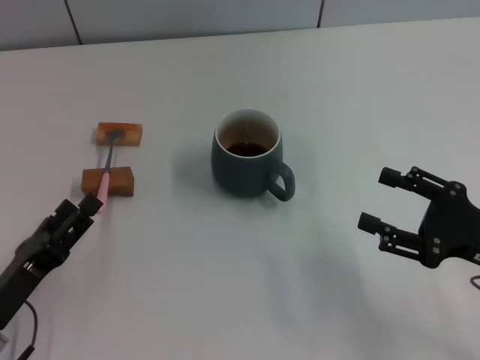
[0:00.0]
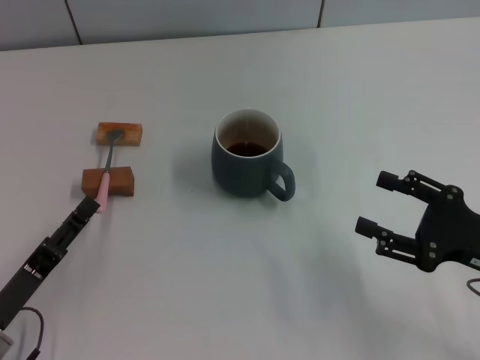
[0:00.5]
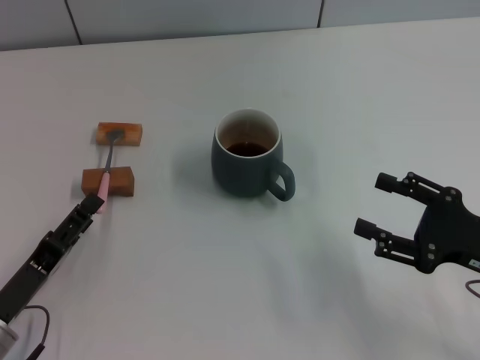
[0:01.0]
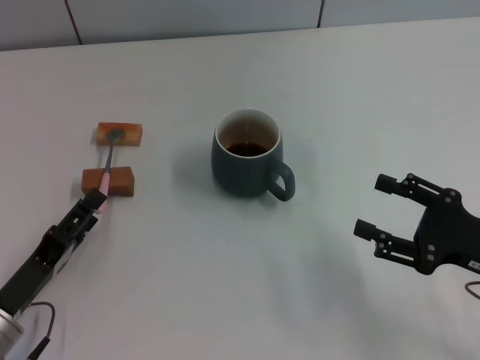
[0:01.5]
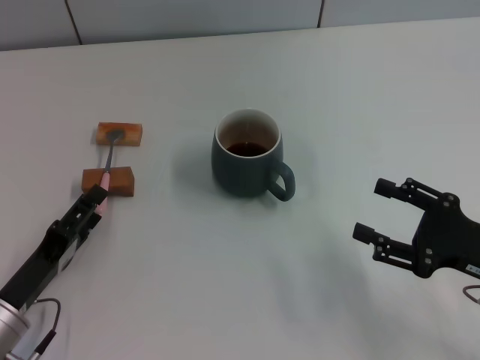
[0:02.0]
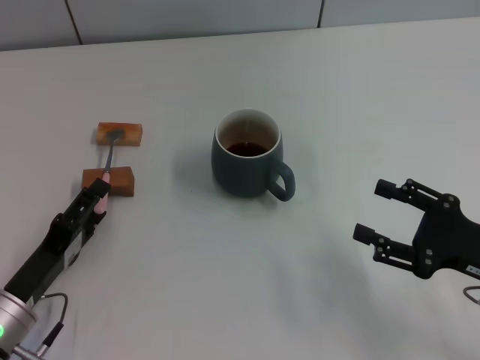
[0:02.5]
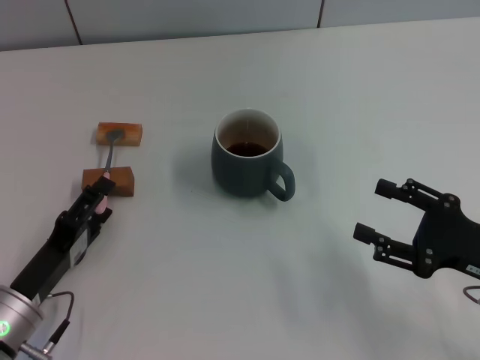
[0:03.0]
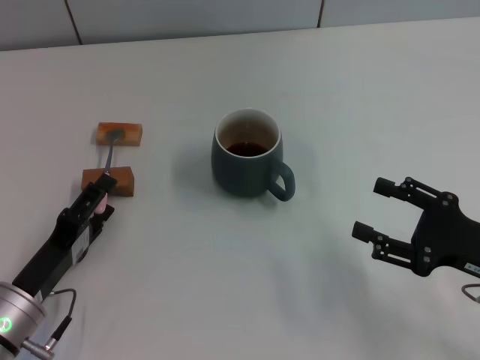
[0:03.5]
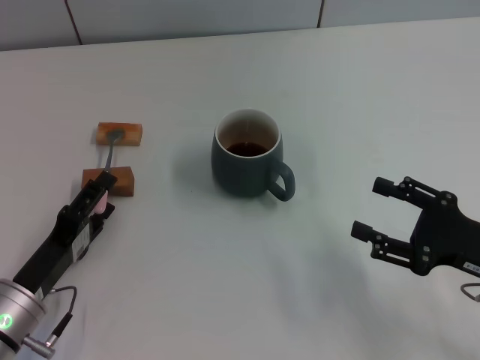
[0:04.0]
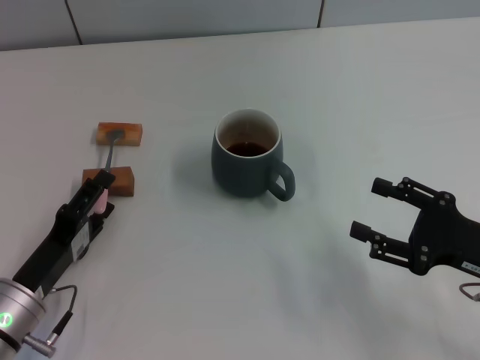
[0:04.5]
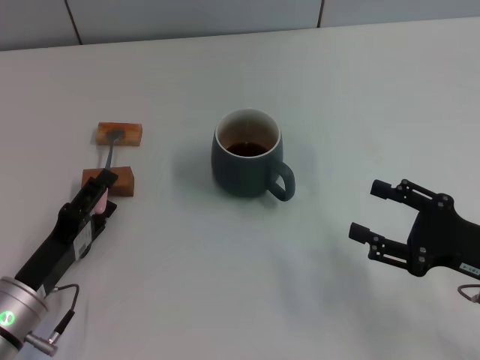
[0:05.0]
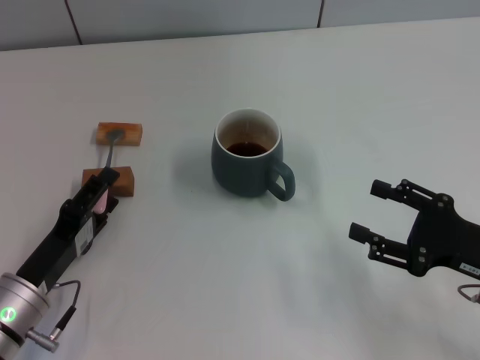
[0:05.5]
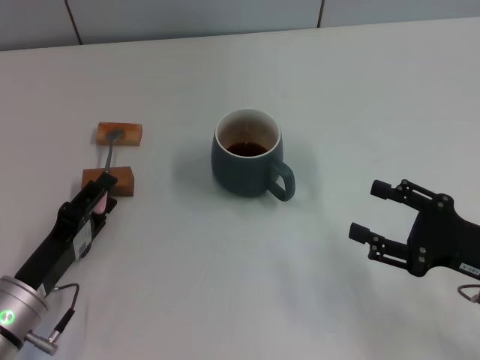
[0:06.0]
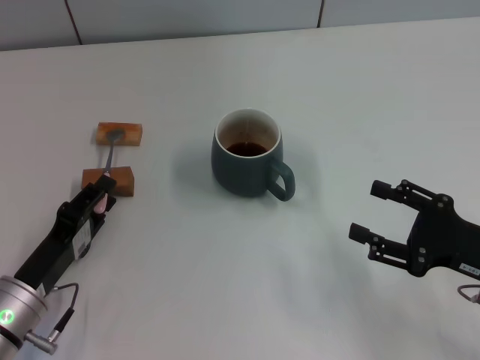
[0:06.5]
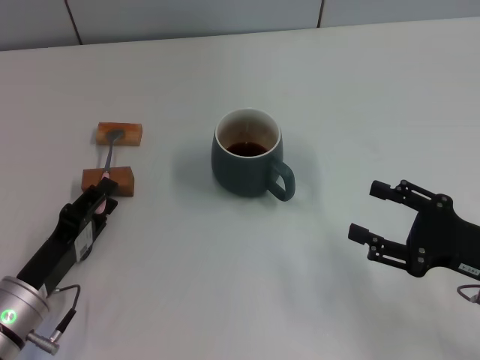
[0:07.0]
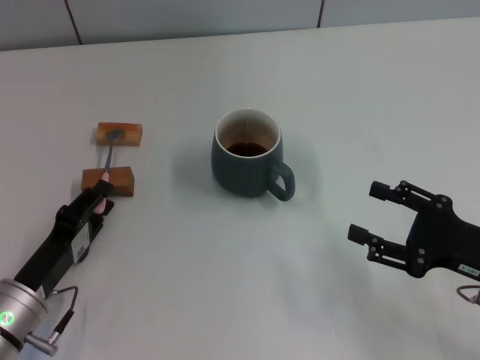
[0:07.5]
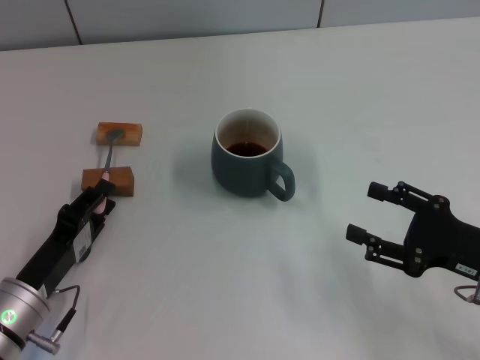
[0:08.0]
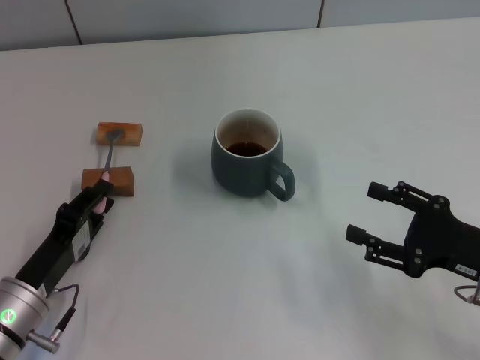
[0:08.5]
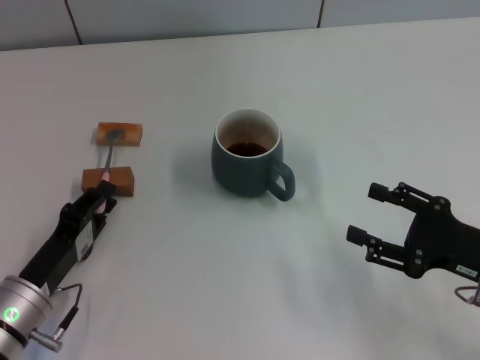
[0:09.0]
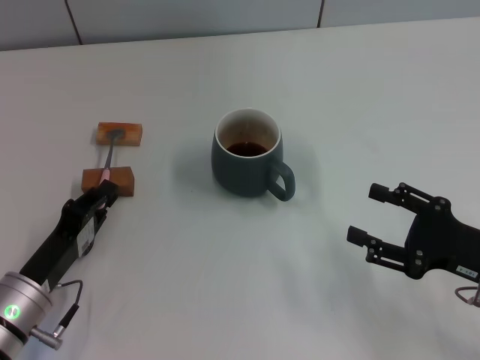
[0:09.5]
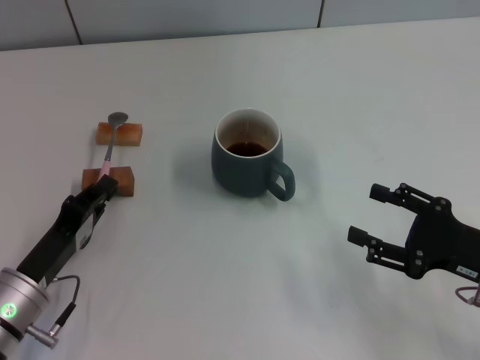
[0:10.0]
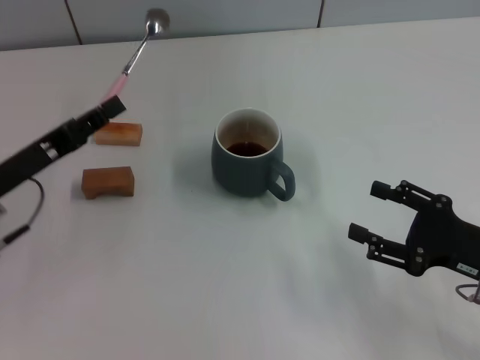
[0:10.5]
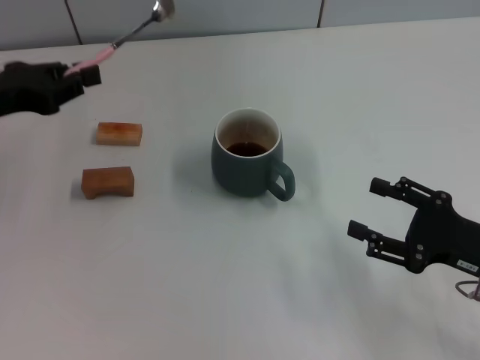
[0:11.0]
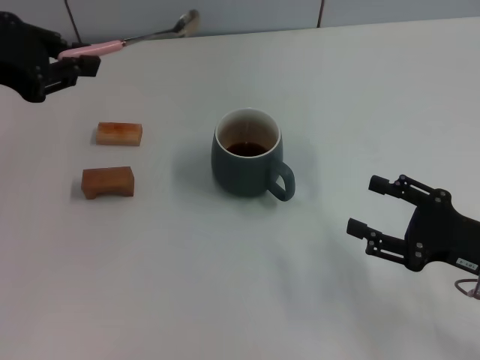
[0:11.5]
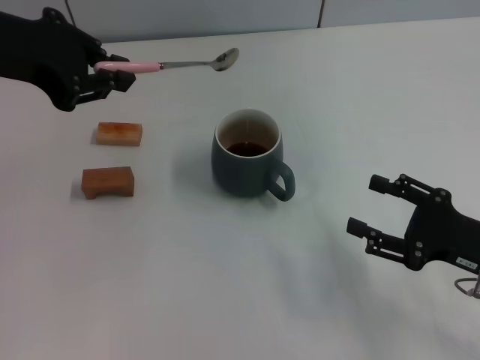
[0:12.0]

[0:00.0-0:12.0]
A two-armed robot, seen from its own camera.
Task of the whole recording: Move the grey cup to the center, lift the pink spoon, stir it three times in the cup, and put the spoon into the cup.
Step, 0:00.0 to 0:10.0: Pick up the spoon with the left gripper.
0:02.0 to 0:04.0: There are only small adjustments of the grippers.
0:04.0 to 0:06.0: The left gripper closes up.
0:06.0 to 0:08.0: Both grippers stay about where they are.
0:08.0 to 0:10.0: The left gripper closes.
0:10.0 to 0:12.0: The left gripper moves upward and forward, approximately 30 cm.

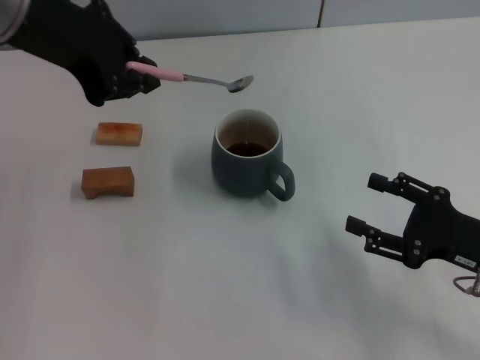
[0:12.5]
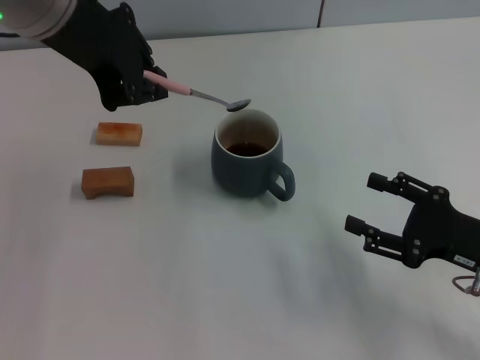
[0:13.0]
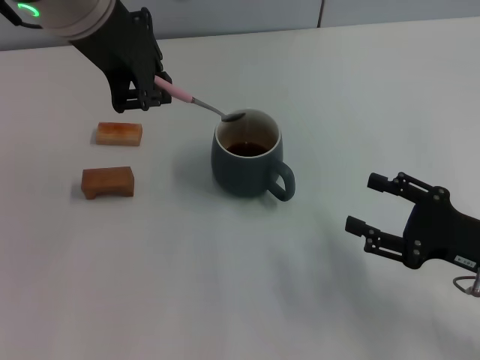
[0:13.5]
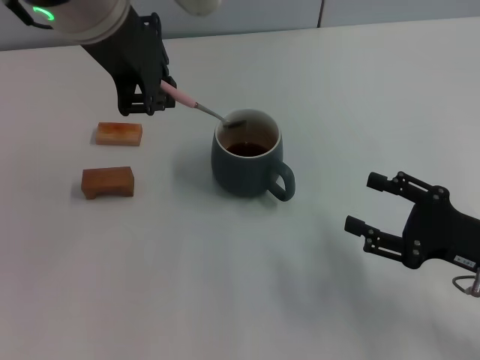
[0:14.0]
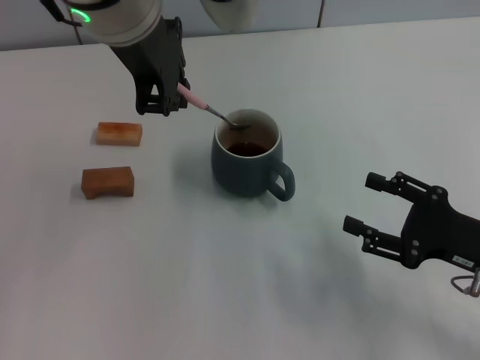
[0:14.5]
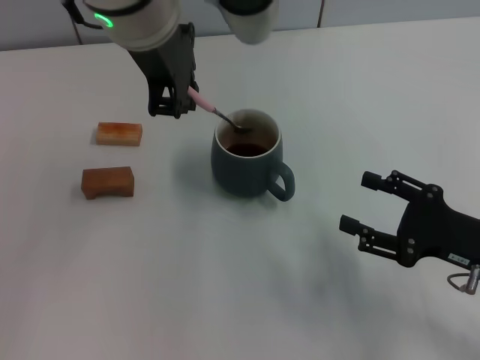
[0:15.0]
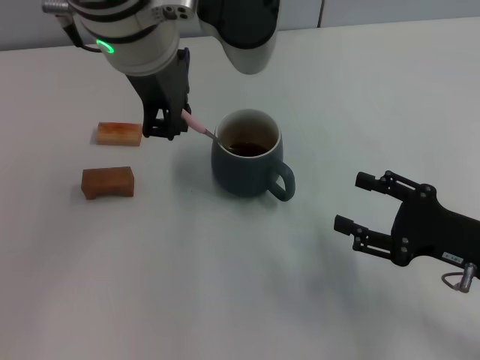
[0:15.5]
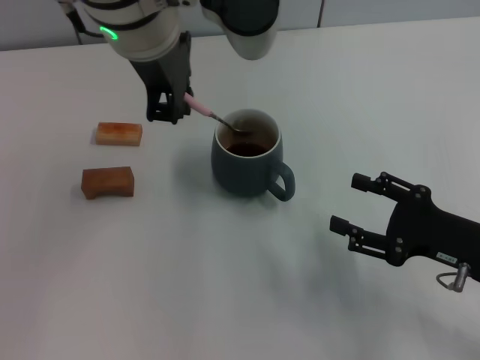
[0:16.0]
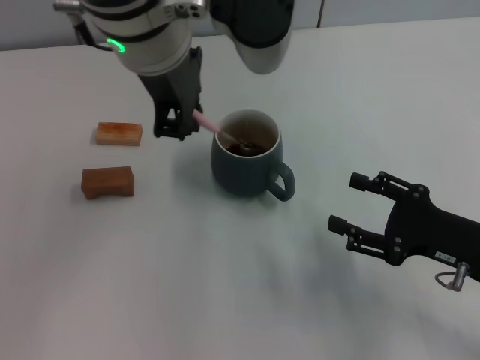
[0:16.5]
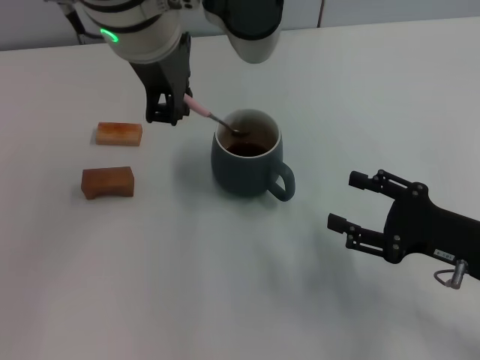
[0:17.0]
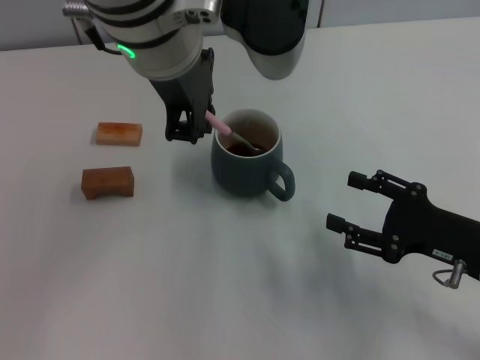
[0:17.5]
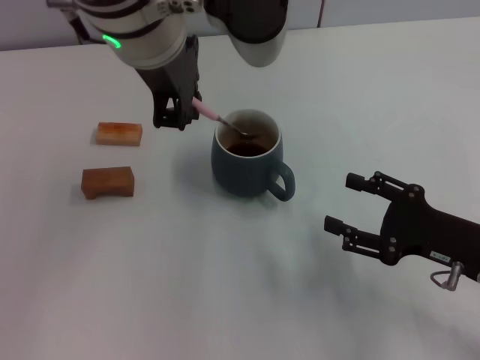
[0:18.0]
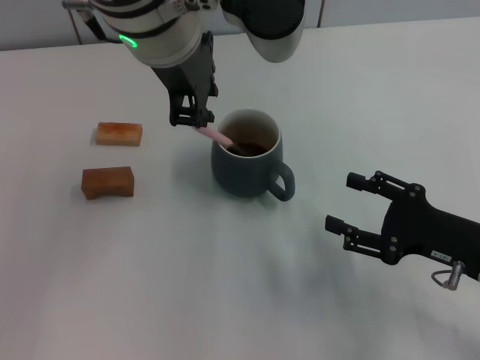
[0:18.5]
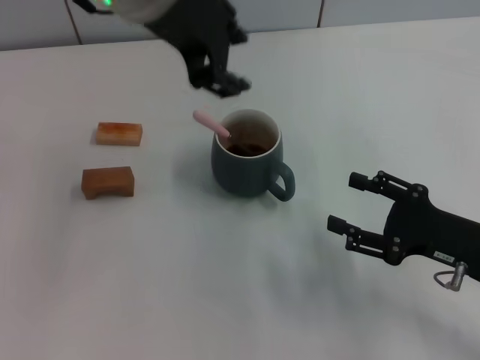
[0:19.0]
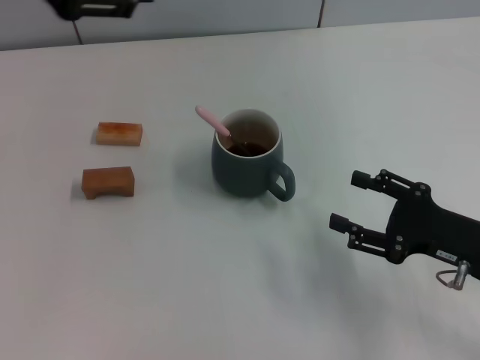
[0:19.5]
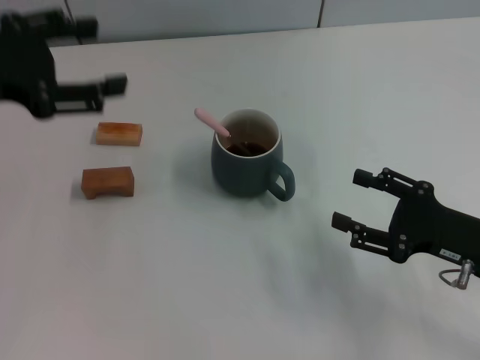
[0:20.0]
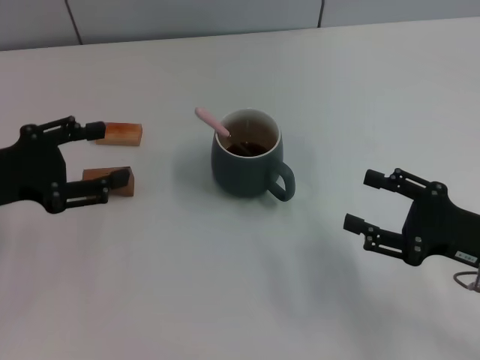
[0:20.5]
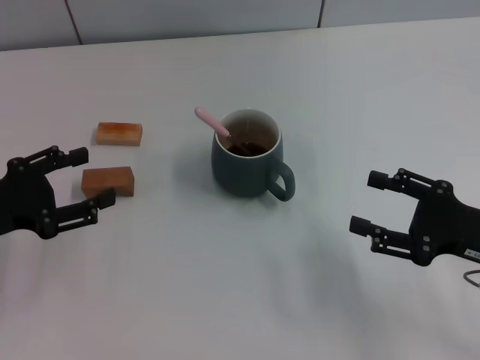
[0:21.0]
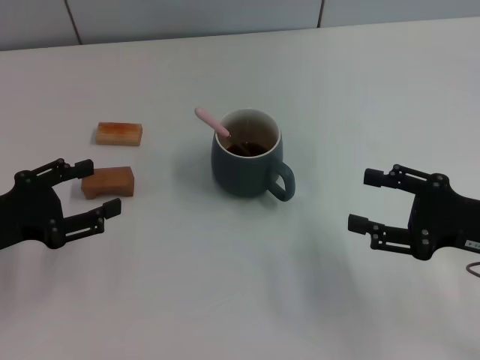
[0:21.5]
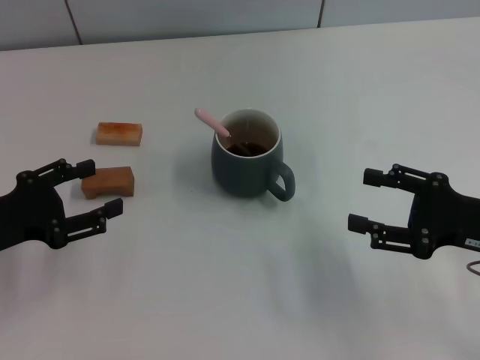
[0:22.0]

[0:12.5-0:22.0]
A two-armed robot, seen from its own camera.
Task of the whole recording: Move the grey cup to the center, lift the pink spoon, stir it three times in the cup, and put the spoon into the cup.
Step, 0:12.5 to 0:19.0: Stir the coffee in the cup with the left gripper.
0:12.5 to 0:14.5: The left gripper moves to the right, some 10 cm.
0:14.5 to 0:16.5: There are only small adjustments of the grippers.
0:16.5 to 0:18.0: Neither gripper changes place.
0:18.0 to 0:20.0: The left gripper is displaced to the left by roughly 20 cm, and opens its fingers.
0:20.0 to 0:22.0: The left gripper moves downward and backward, about 15 cm.
